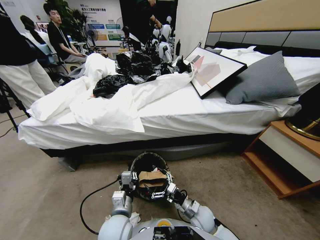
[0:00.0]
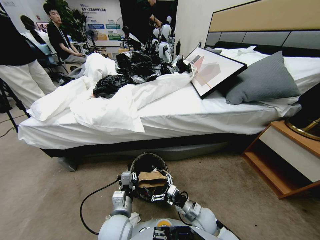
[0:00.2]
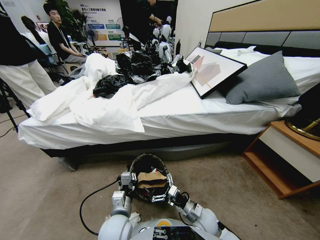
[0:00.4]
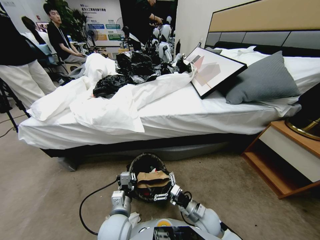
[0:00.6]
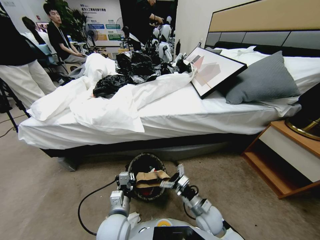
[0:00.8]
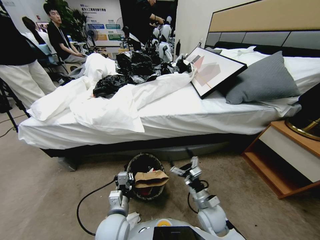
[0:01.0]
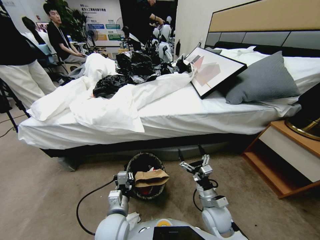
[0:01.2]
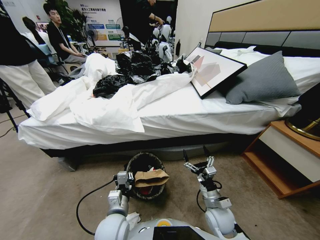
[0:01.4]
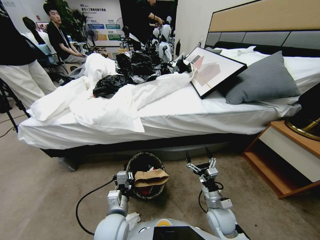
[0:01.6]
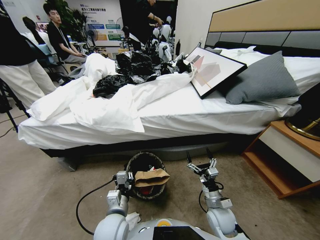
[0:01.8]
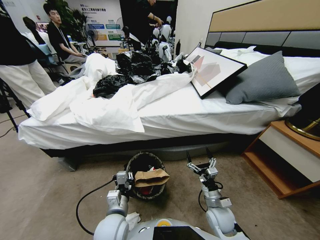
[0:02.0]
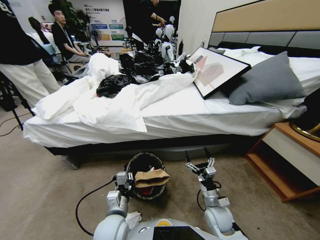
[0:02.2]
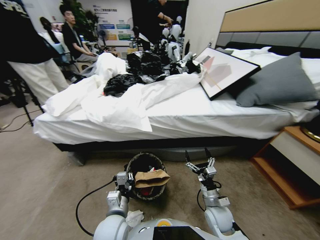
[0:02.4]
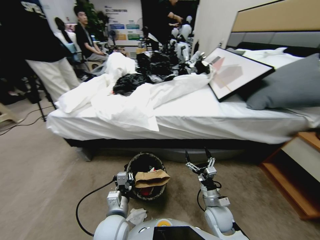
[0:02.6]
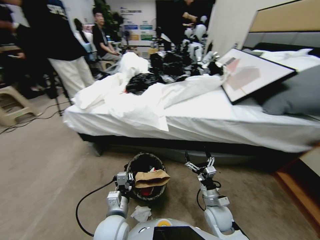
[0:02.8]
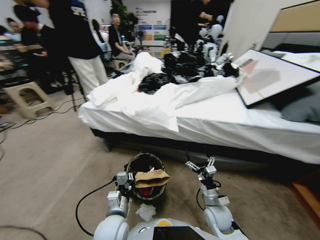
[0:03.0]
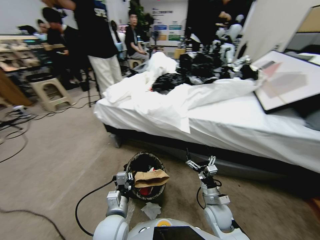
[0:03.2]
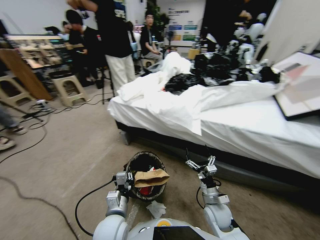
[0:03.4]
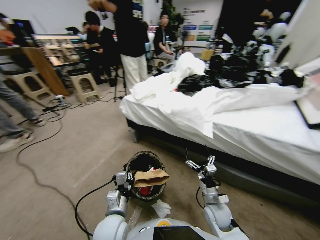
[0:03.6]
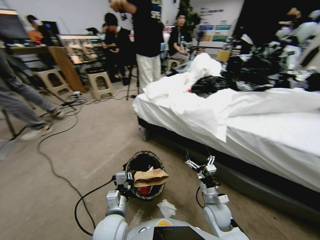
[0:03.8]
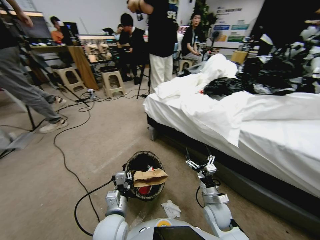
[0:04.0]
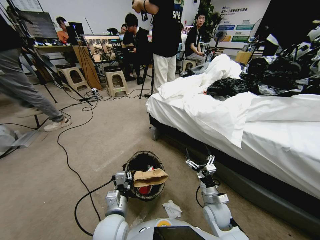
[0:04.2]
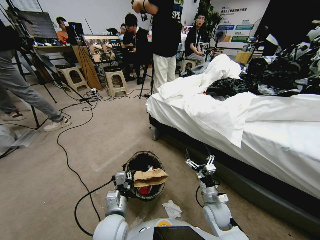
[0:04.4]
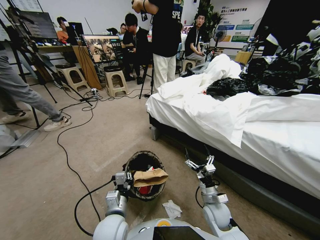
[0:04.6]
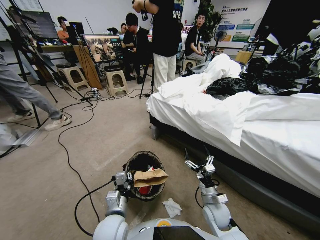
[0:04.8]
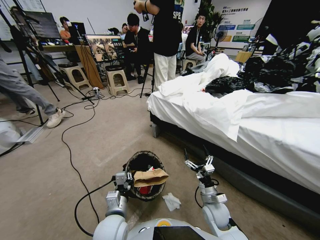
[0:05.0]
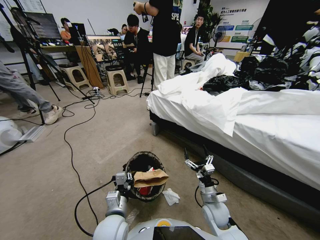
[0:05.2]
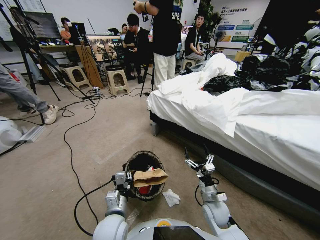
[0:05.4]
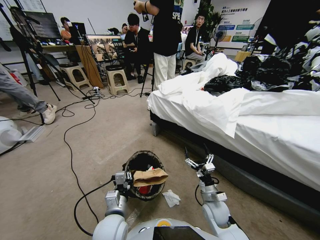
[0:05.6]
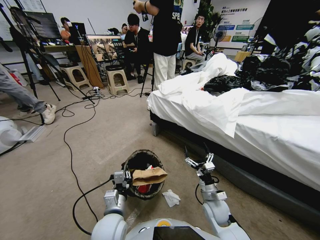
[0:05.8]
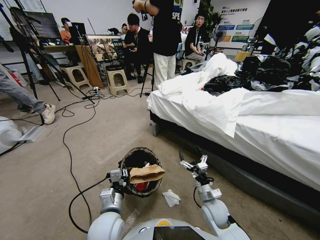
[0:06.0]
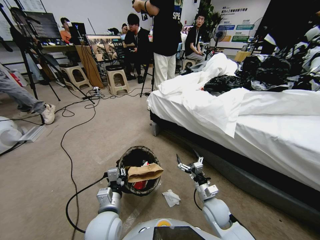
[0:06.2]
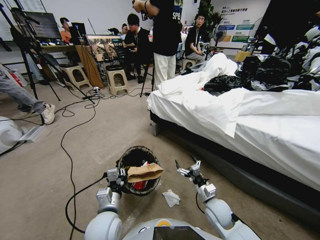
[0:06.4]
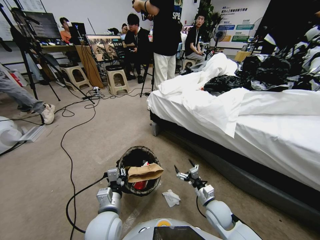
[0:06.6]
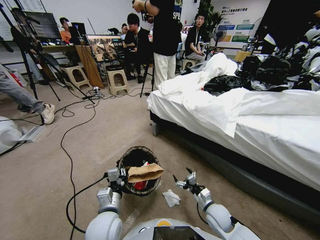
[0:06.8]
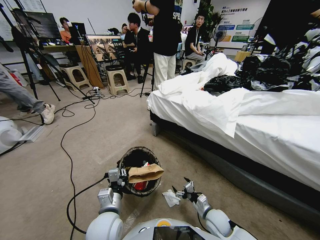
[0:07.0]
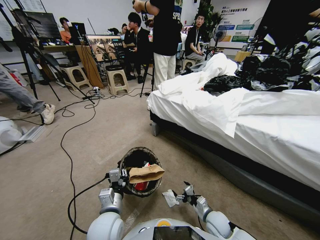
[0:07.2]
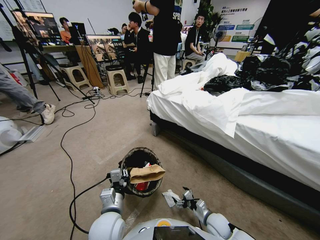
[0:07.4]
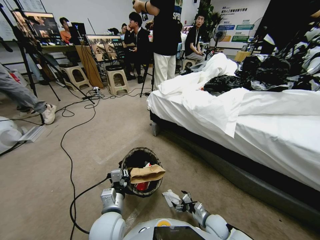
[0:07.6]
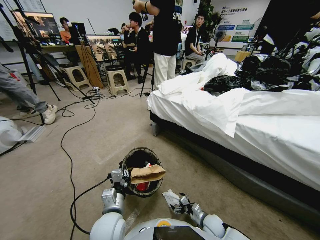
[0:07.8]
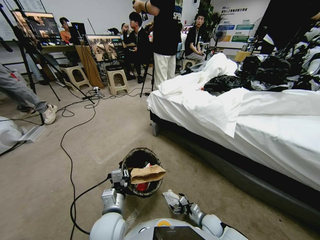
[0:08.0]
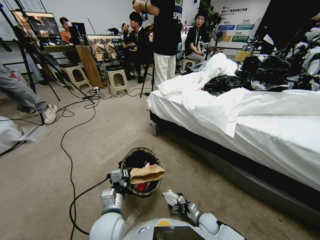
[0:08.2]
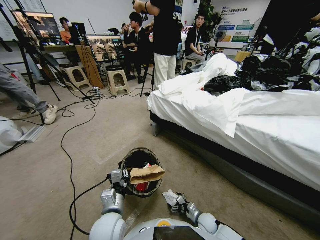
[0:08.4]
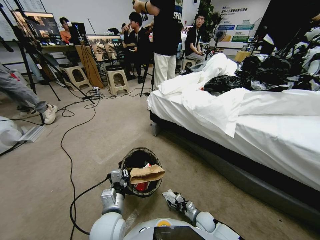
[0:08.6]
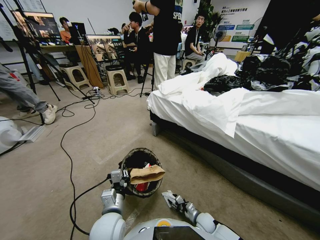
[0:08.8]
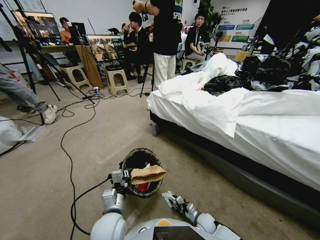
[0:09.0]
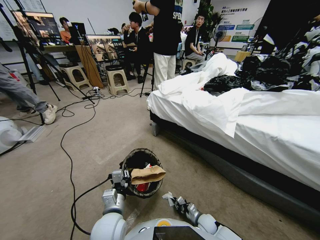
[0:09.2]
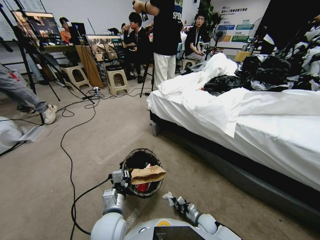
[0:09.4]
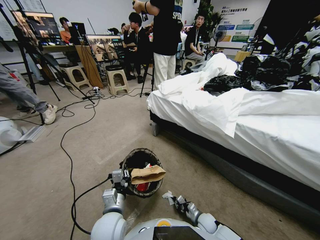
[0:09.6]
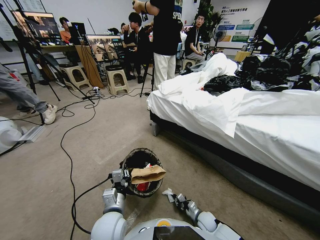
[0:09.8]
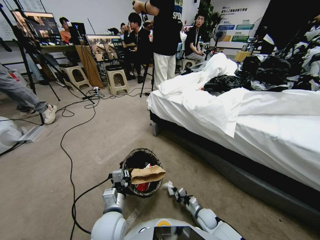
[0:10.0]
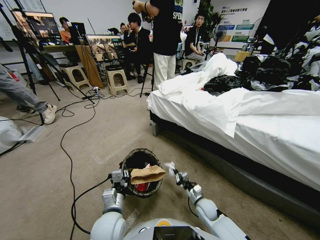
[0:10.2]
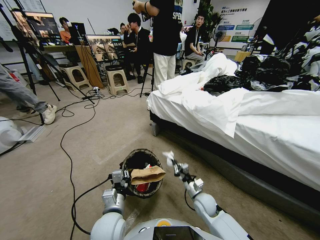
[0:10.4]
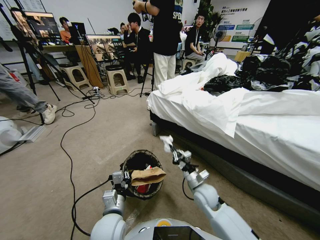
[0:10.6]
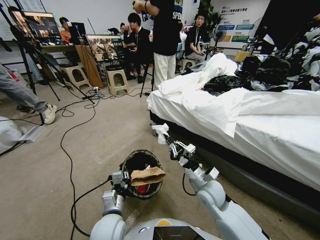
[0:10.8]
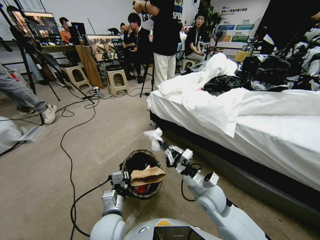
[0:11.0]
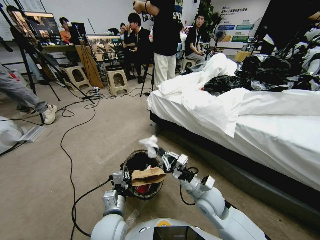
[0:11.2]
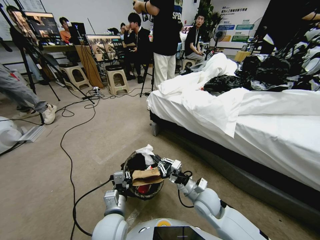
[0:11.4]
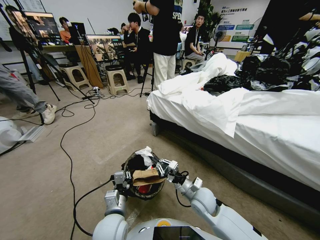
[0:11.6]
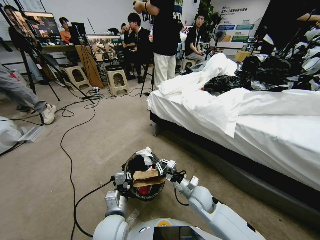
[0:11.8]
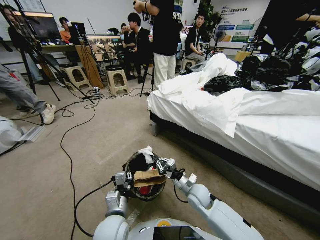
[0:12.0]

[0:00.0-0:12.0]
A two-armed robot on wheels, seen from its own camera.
Task of the whole recording: Pick up the trash bin, then pick up the garbage from the floor and place it into the trash bin.
0:00.0 to 0:01.6: The right gripper heads to the right, covering approximately 5 cm.
0:06.0 to 0:07.6: The right gripper moves downward, roughly 15 cm.
0:07.6 to 0:09.0: The right gripper moves downward, about 5 cm, and closes its fingers.
0:09.0 to 0:10.4: The right gripper heads upward, covering about 20 cm.
0:10.4 to 0:12.0: The right gripper reaches about 10 cm upward, then returns.

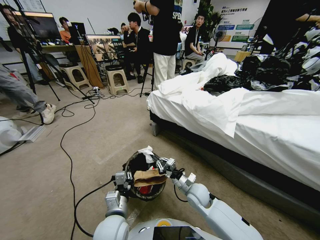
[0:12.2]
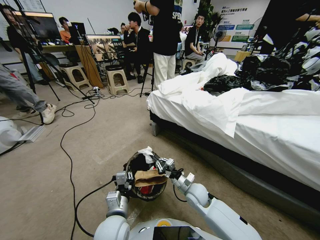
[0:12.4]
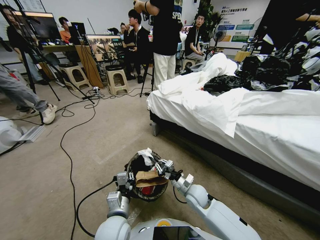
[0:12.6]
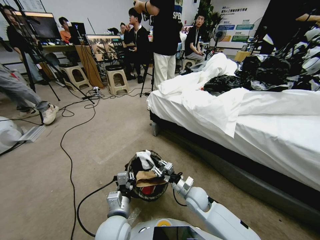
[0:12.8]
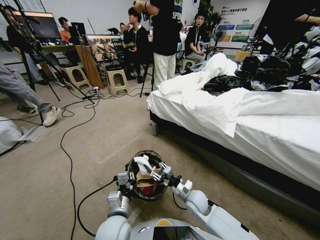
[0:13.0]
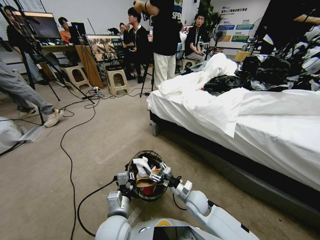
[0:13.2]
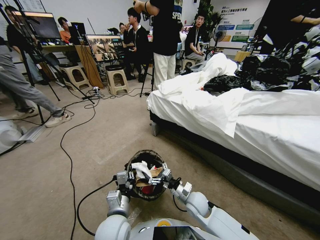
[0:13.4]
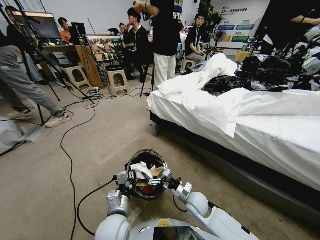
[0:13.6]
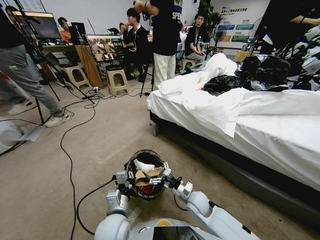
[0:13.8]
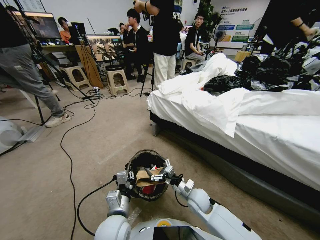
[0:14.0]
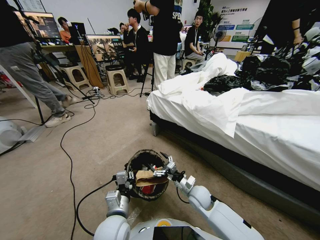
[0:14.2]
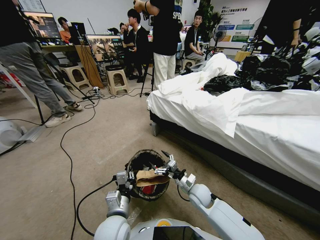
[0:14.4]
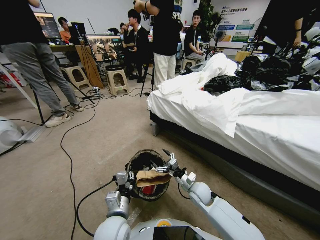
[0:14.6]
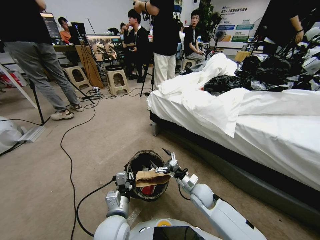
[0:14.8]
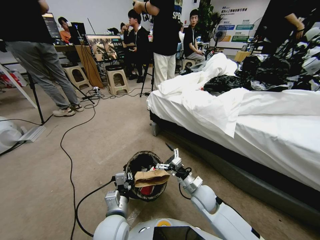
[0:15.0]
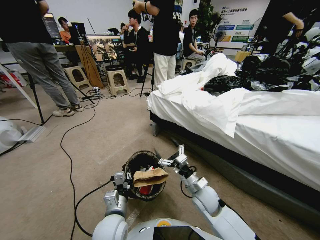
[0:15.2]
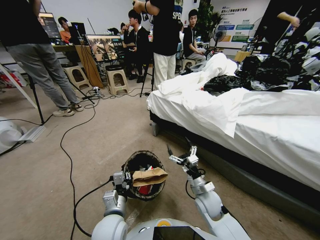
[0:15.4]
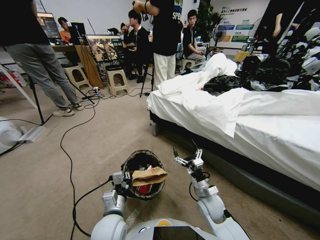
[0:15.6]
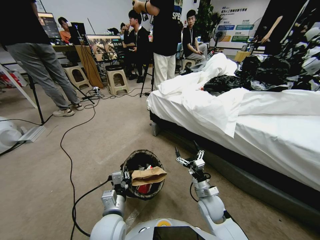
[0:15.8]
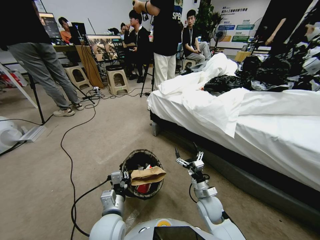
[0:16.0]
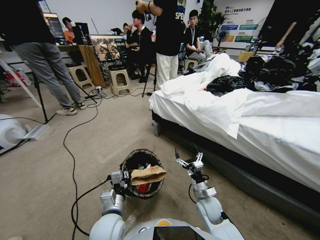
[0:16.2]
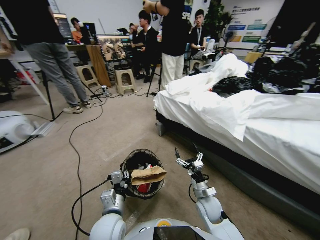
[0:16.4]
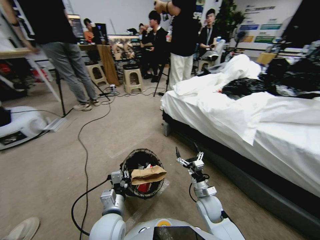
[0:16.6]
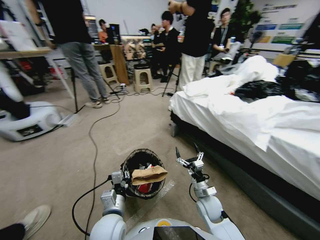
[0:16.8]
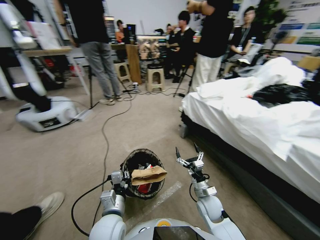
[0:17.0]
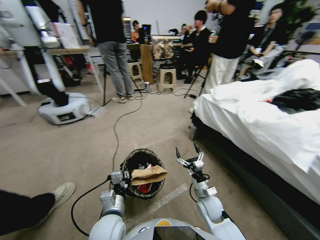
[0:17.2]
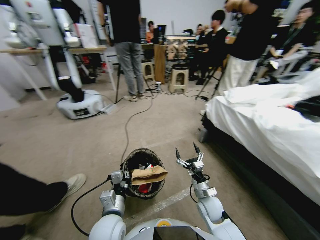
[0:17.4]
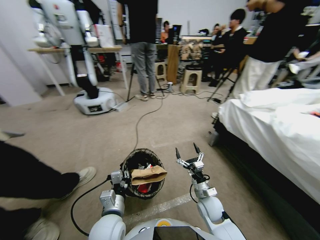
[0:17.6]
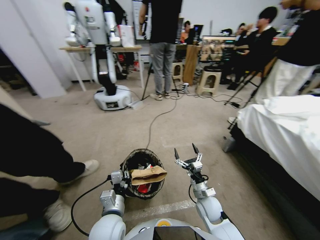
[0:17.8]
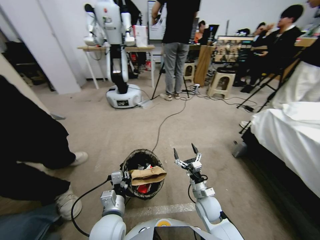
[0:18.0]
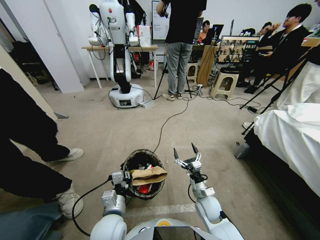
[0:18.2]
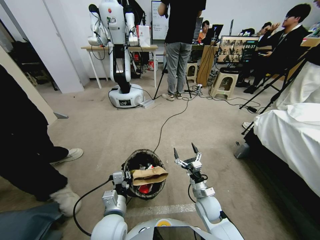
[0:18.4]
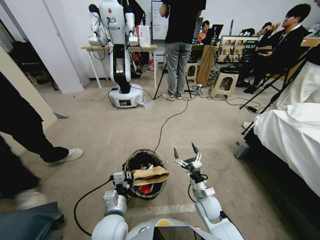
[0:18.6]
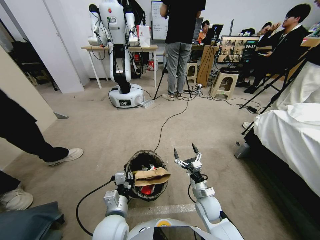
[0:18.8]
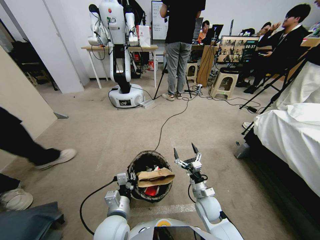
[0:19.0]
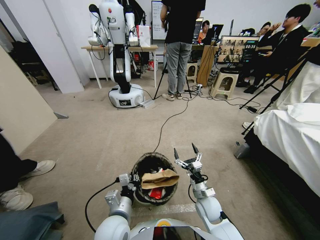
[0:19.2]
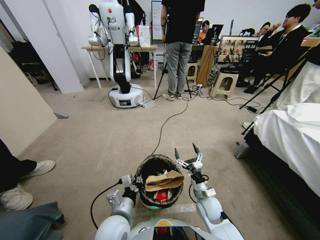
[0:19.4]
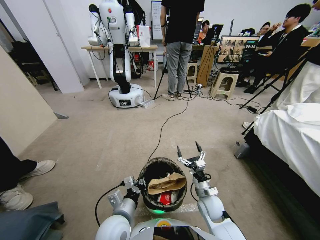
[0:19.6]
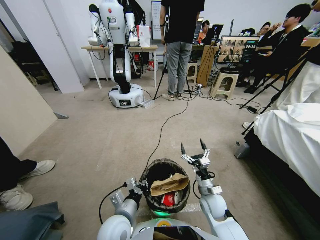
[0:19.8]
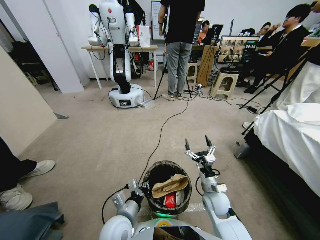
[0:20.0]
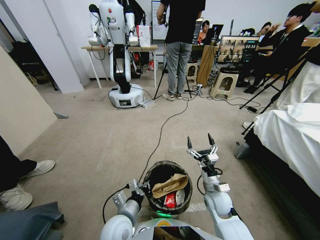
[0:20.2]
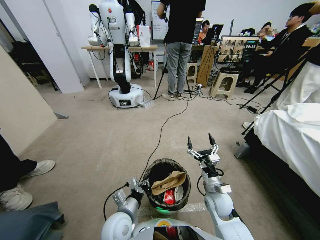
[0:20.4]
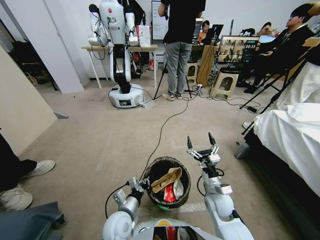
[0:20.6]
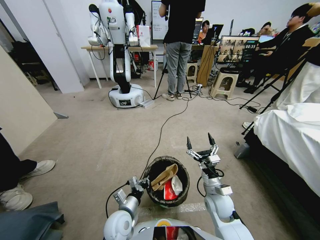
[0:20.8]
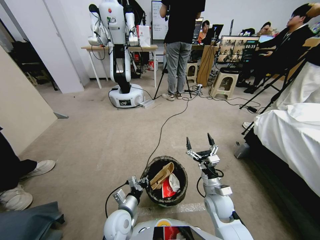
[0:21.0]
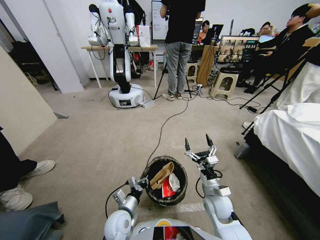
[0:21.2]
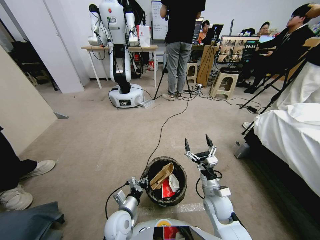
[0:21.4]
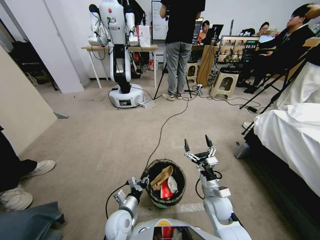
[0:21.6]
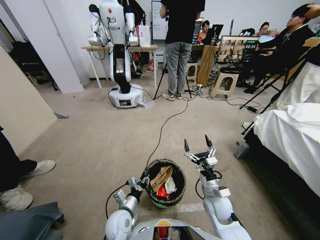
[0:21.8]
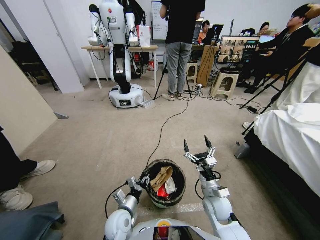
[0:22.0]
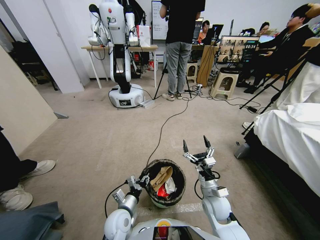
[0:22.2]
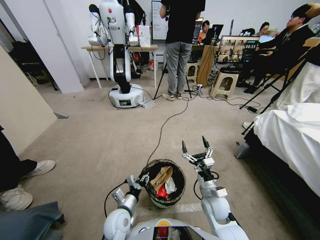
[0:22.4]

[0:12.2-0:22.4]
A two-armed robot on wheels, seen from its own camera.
Task of the whole recording: Pick up the trash bin, then pick up the garbage from the floor and place it into the trash bin.
0:12.2 to 0:13.6: The right gripper opens its fingers.
0:13.6 to 0:15.2: The right gripper travels upward by approximately 5 cm.
0:15.2 to 0:16.6: The right gripper is displaced downward by roughly 5 cm.
0:19.4 to 0:21.0: The left gripper travels downward by some 10 cm.
0:21.0 to 0:22.4: The left gripper opens.
